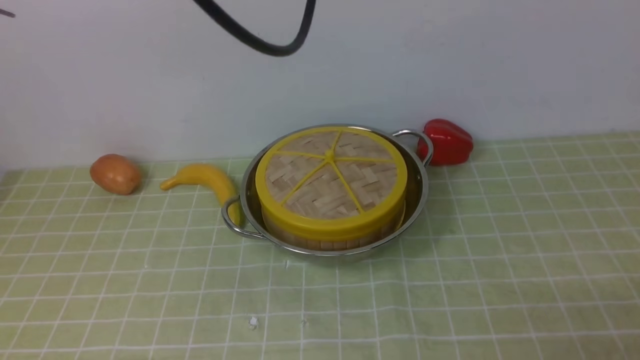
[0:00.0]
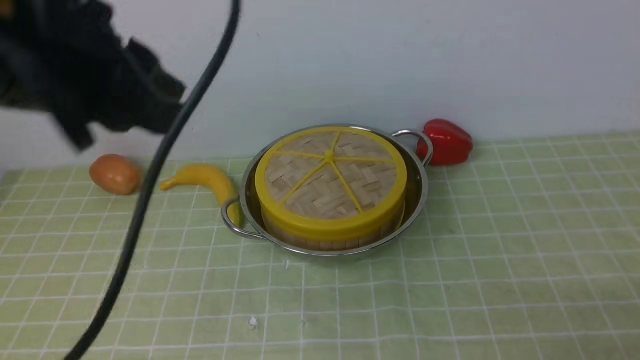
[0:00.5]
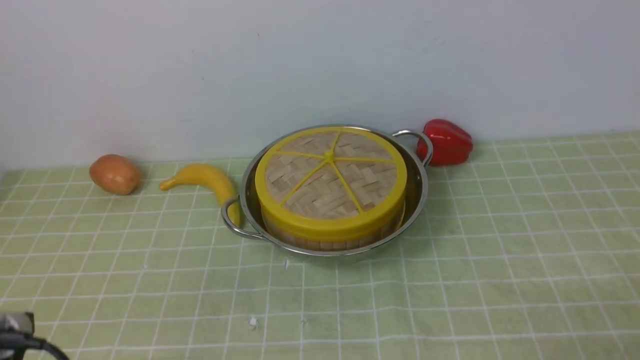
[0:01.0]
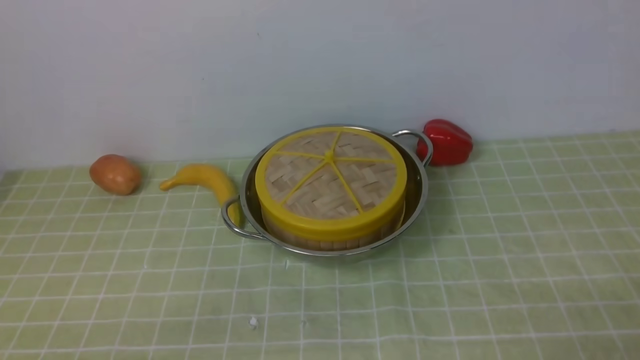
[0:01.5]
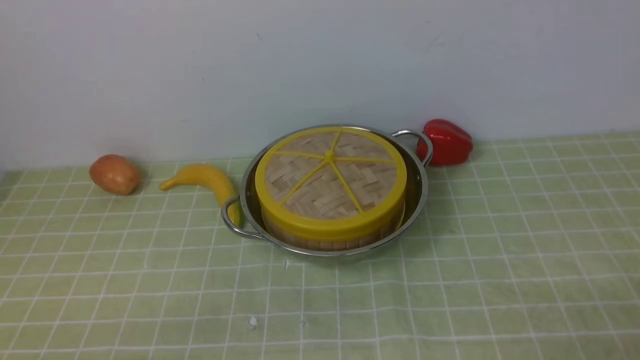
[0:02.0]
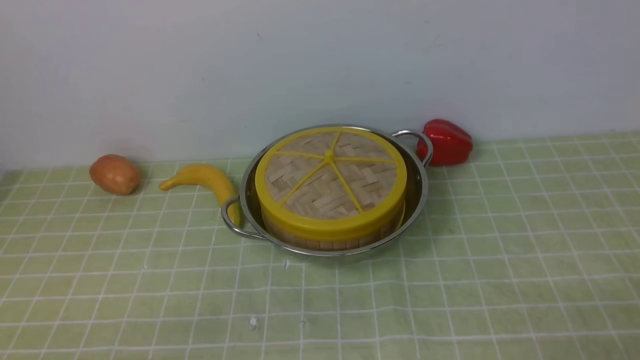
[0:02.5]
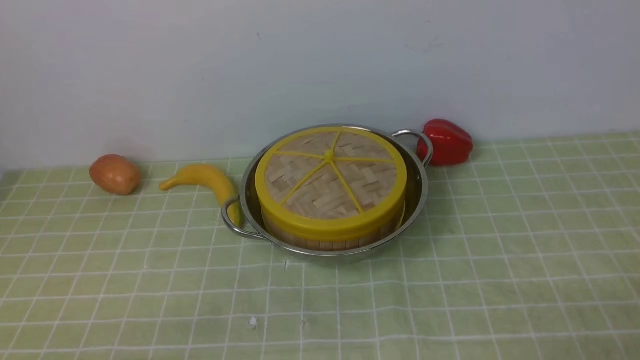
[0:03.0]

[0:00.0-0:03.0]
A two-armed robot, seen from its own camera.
Task of the whole recording: place the steamer in the pot on the green tablecloth, and put the lid on the steamer.
0:00.0 to 0:01.5: The left gripper heads downward, backward and to the left, covering about 40 cm.
0:01.5 to 0:03.0: The two grippers keep their place.

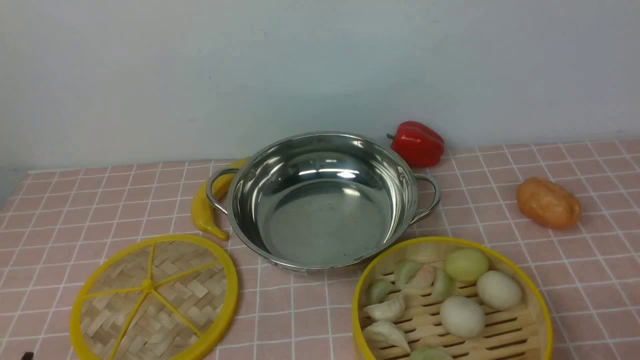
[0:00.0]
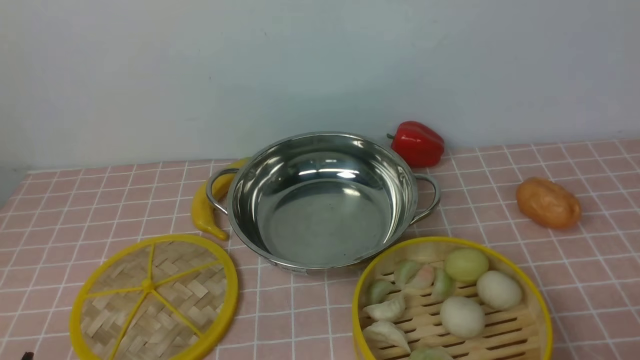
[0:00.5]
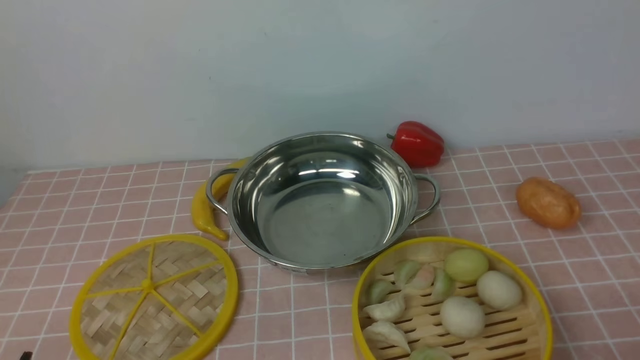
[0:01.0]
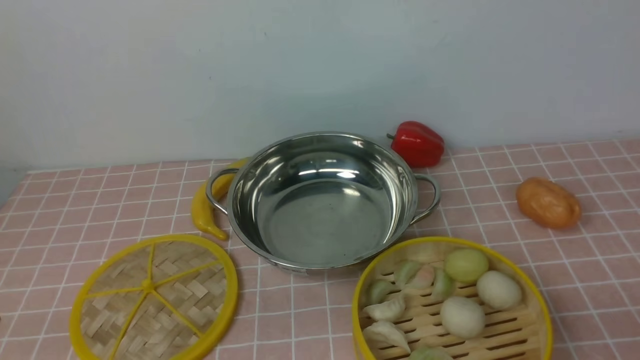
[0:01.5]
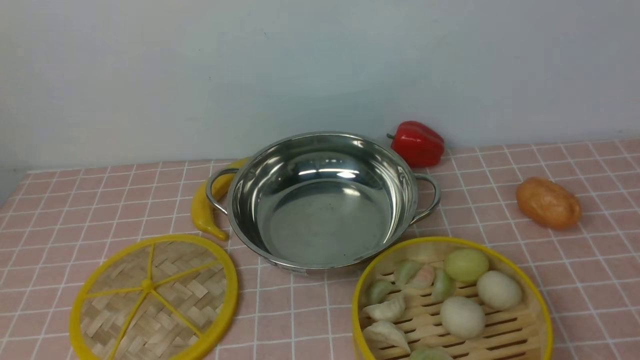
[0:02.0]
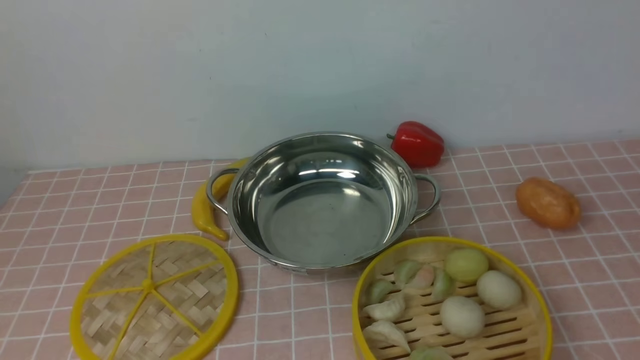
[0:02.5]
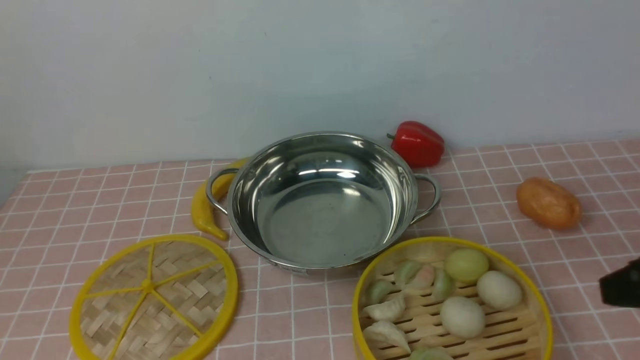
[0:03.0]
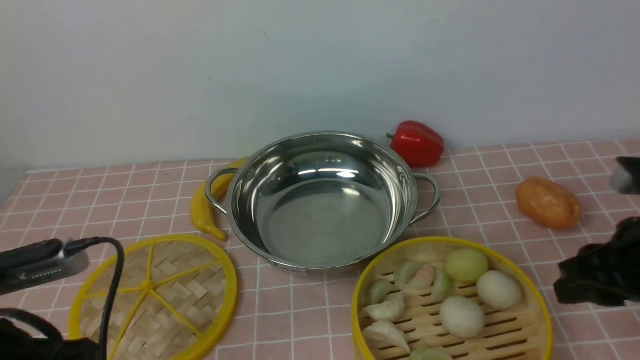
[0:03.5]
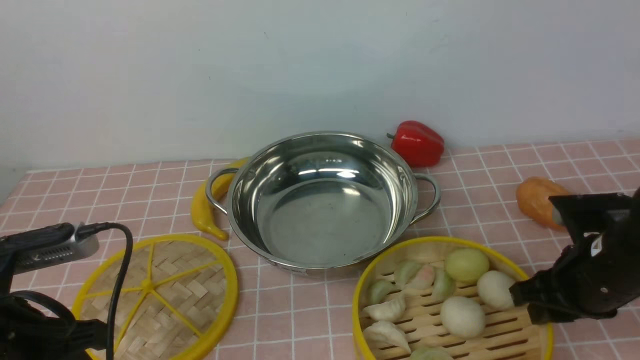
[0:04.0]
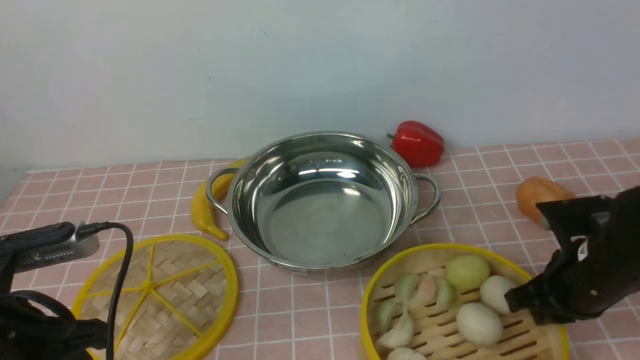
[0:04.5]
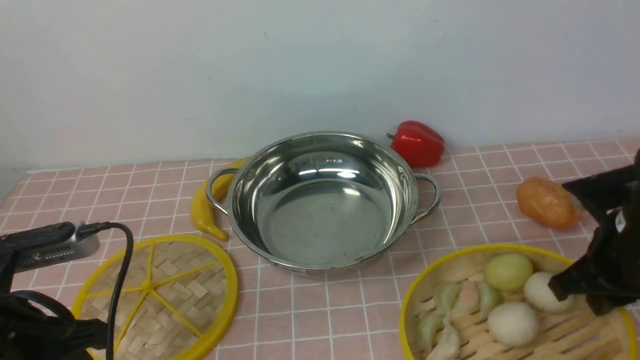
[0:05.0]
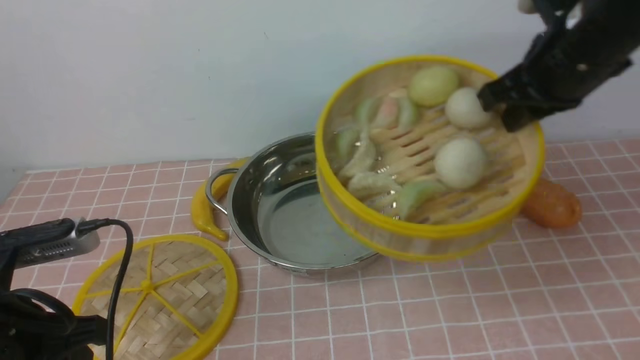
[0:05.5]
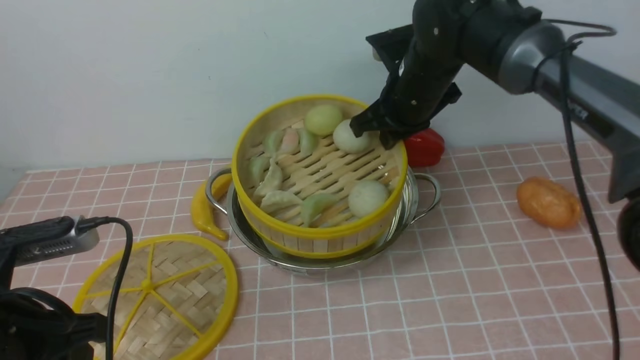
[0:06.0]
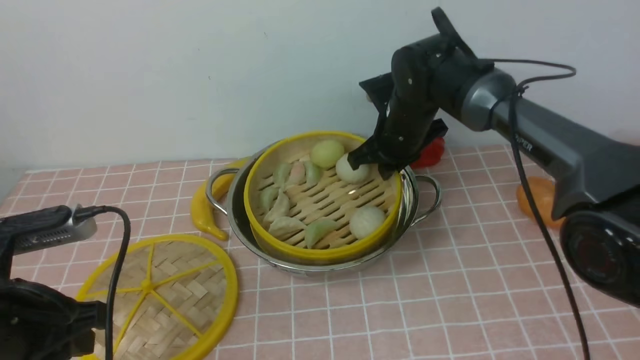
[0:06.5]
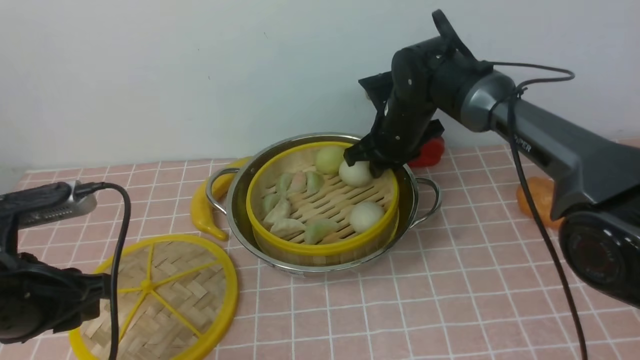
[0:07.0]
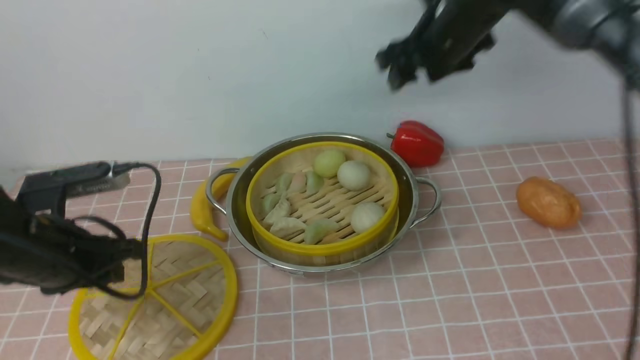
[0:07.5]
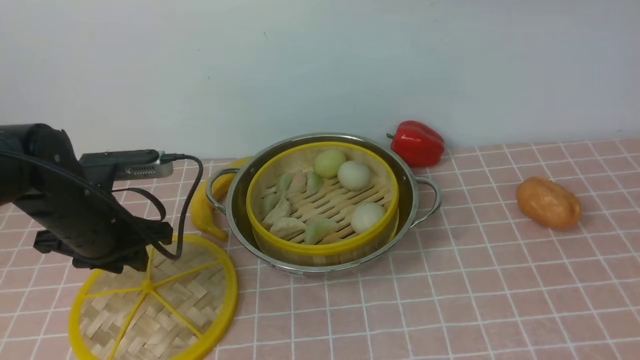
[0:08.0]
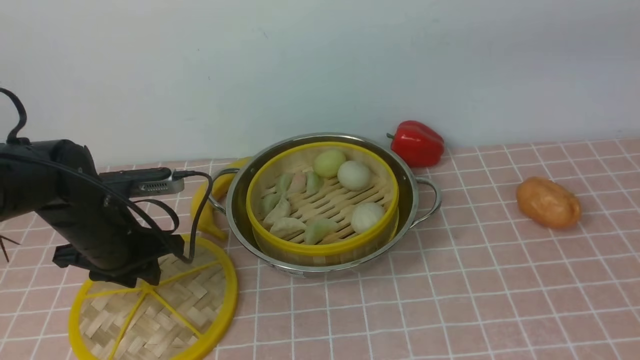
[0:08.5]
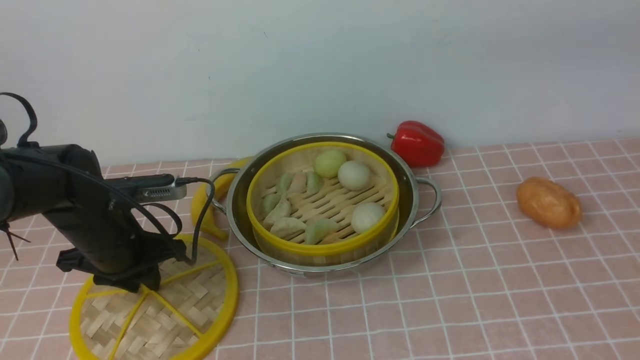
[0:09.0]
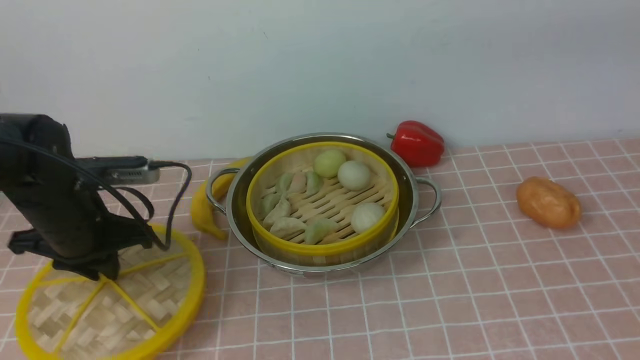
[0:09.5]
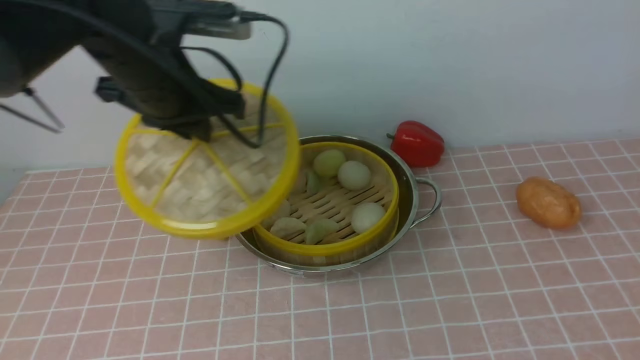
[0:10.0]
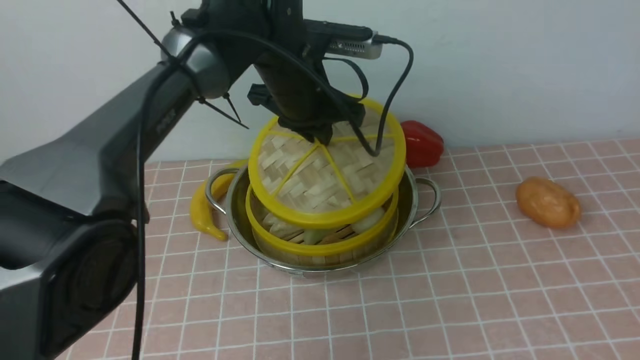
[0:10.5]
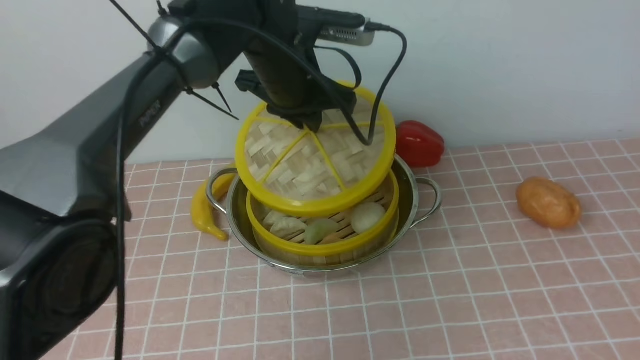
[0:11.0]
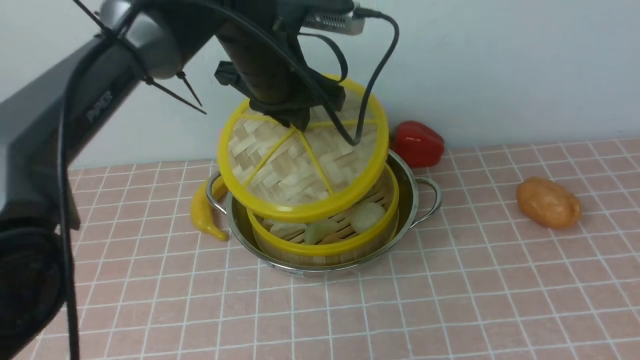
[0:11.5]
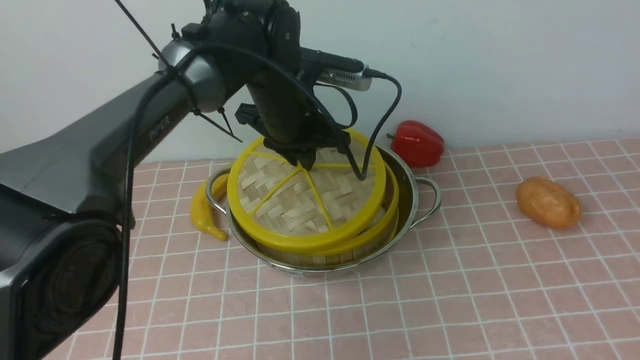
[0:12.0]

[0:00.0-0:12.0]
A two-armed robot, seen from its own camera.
Task of the whole recording: place the steamer in the pot on the pink tablecloth, and put the lid on the steamer.
Step, 0:00.0 to 0:05.0: use the right arm to lift the steamer closest to it.
Step, 0:05.5 to 0:07.0: use the right arm to put the steamer into the iron steamer pot in the middle.
Step, 0:07.5 to 0:09.0: use the left arm to lift the lid of the steamer.
0:02.0 to 0:04.0: The right gripper heads forward and downward, covering some 25 cm, while the left gripper is displaced forward by roughly 15 cm.
0:04.0 to 0:06.0: The right gripper shifts some 25 cm forward, to the left and upward.
0:06.0 to 0:08.0: The left gripper heads forward, covering some 15 cm; the right gripper heads upward, backward and to the right, covering approximately 30 cm, and opens its fingers.
0:08.0 to 0:10.0: The right gripper heads backward and to the right, covering some 20 cm. Meanwhile the left gripper travels upward, to the right and forward by about 15 cm, and closes its fingers.
0:10.0 to 0:12.0: The left gripper travels to the right, downward and forward by some 15 cm. Meanwhile the right gripper moves backward, some 10 cm.

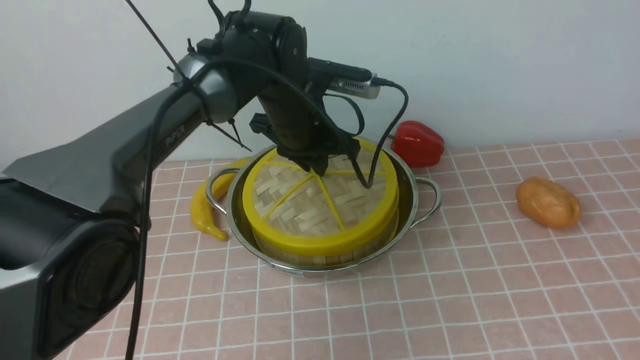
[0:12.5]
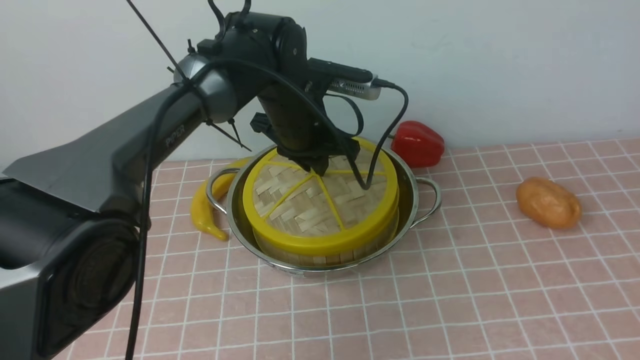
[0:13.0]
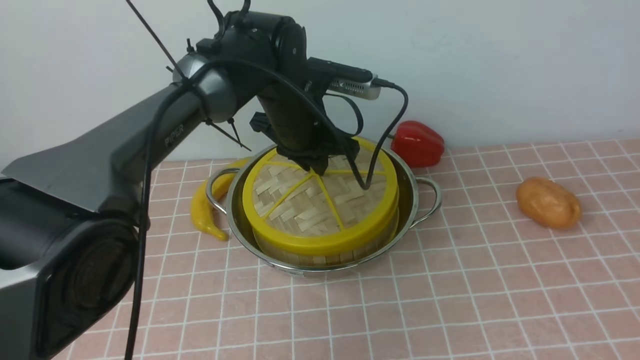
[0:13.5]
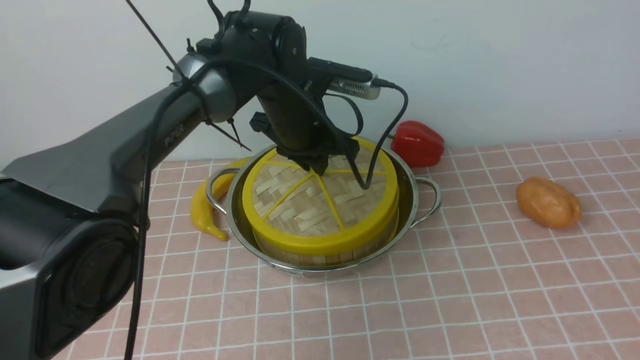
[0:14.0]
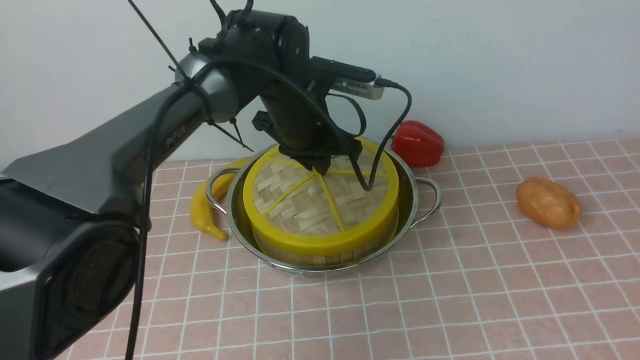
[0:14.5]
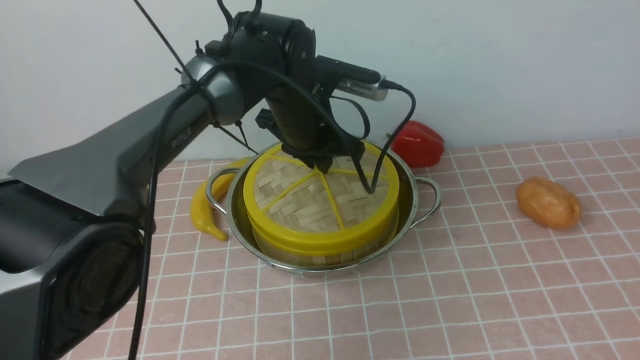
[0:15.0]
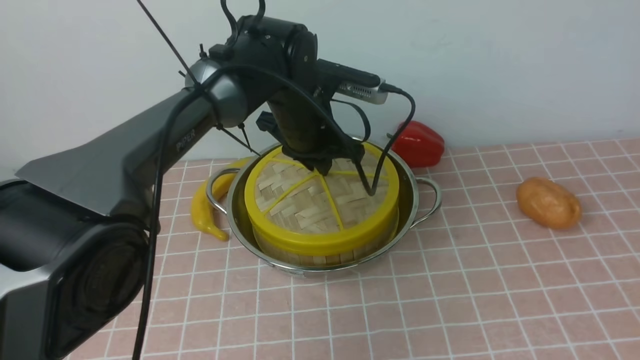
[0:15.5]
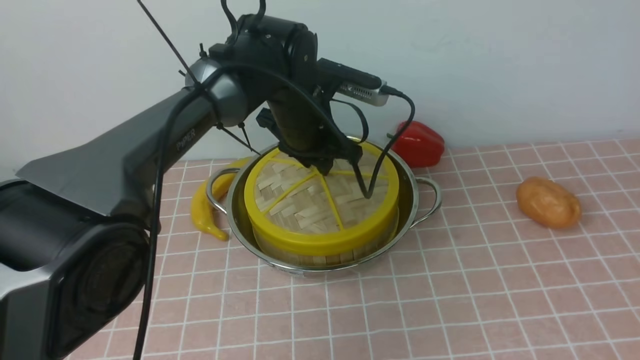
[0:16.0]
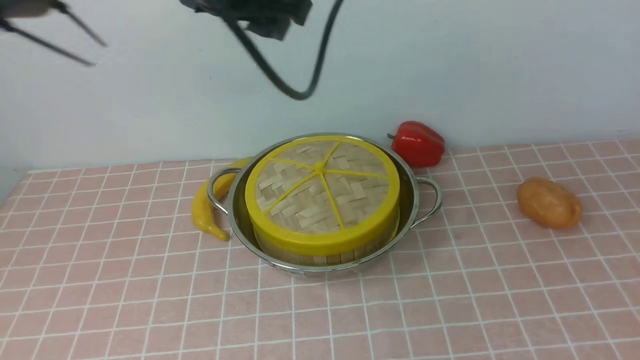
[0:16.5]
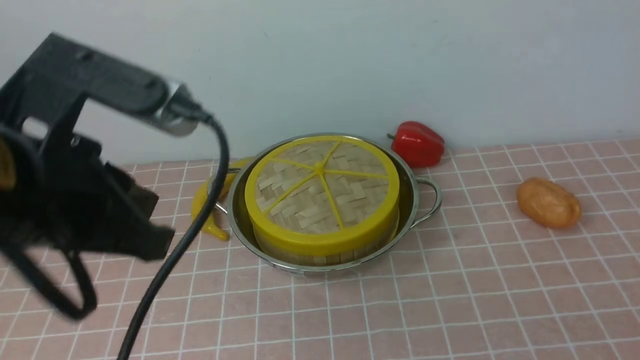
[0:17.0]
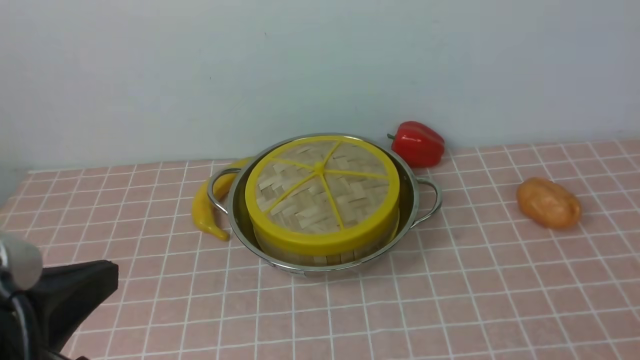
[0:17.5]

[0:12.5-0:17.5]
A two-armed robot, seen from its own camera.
Task of the whole recording: place the steamer in the pot on the pink tablecloth, and put the lid on the steamer.
Step, 0:12.5 to 0:16.0: use the left arm to place the steamer lid on the steamer.
0:12.5 to 0:15.0: Both grippers stay put.
0:15.0 to 0:17.5: The right gripper is displaced downward and backward by about 15 cm, and closes its fingers. Meanwhile the left gripper goes about 40 cm backward and to the left, and closes.
